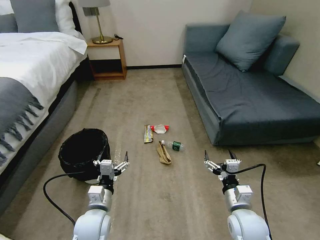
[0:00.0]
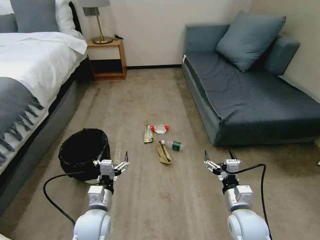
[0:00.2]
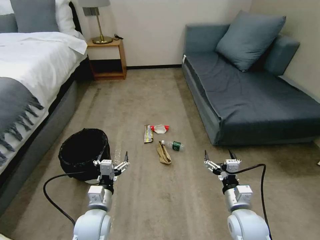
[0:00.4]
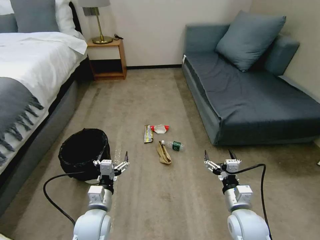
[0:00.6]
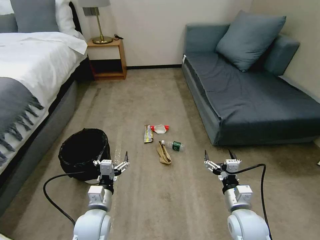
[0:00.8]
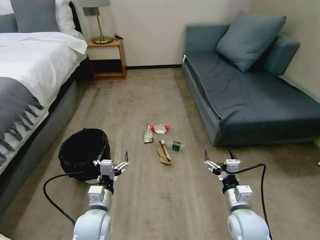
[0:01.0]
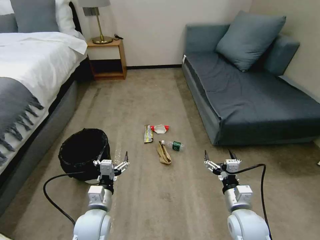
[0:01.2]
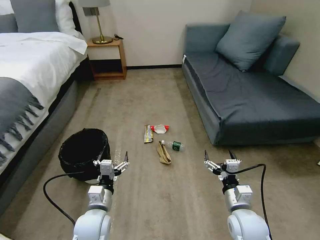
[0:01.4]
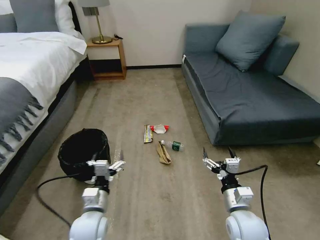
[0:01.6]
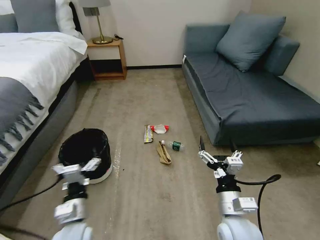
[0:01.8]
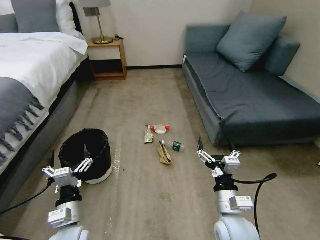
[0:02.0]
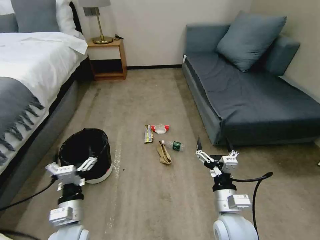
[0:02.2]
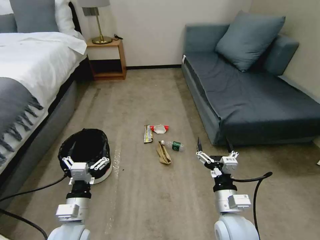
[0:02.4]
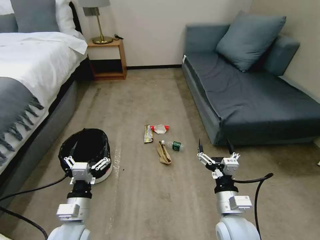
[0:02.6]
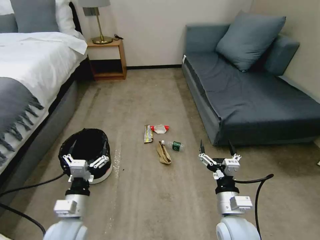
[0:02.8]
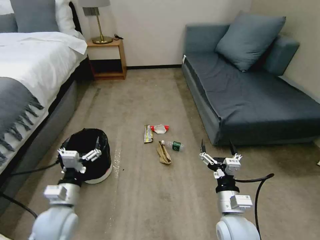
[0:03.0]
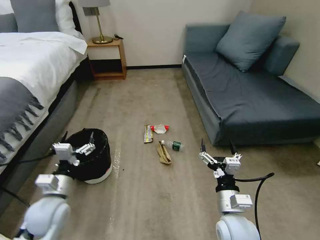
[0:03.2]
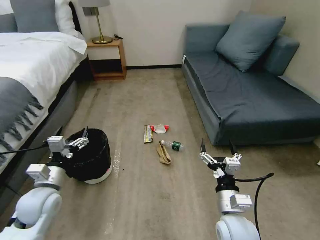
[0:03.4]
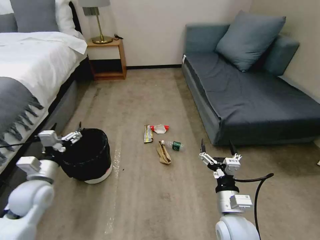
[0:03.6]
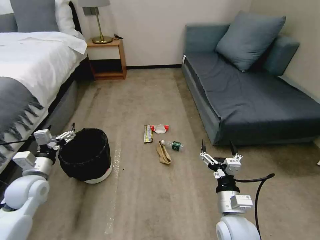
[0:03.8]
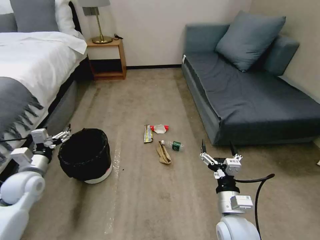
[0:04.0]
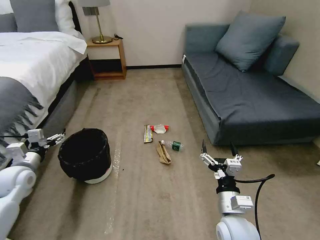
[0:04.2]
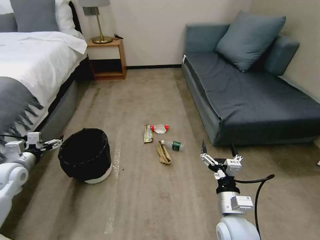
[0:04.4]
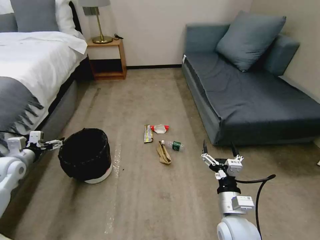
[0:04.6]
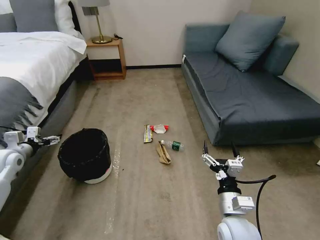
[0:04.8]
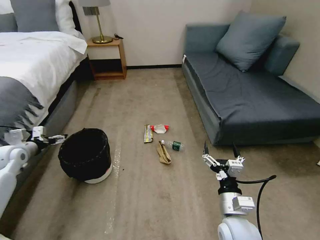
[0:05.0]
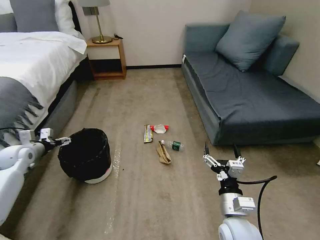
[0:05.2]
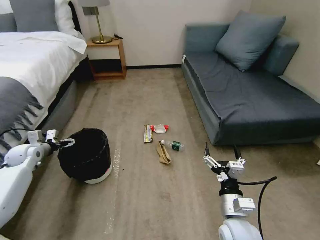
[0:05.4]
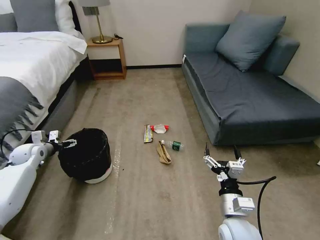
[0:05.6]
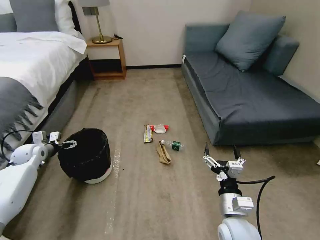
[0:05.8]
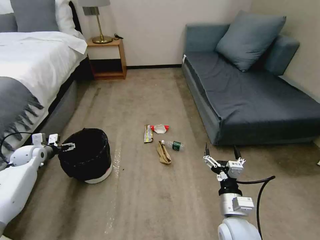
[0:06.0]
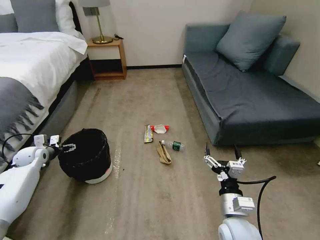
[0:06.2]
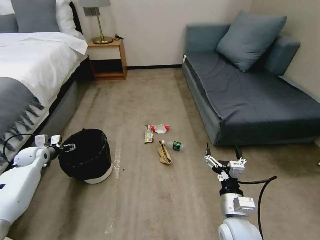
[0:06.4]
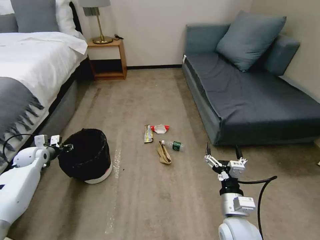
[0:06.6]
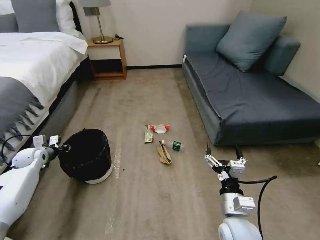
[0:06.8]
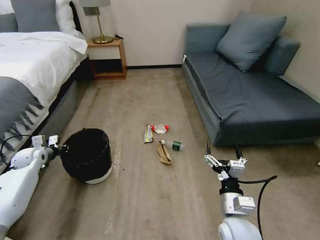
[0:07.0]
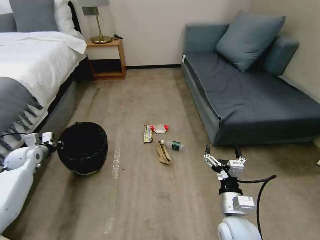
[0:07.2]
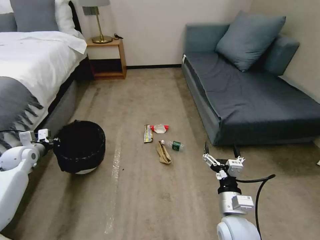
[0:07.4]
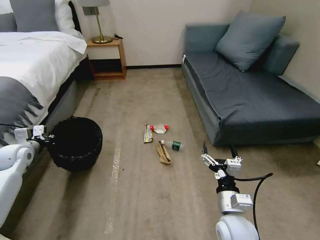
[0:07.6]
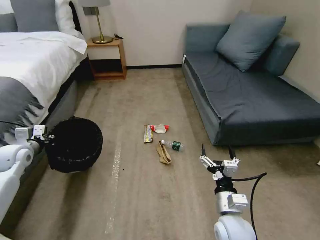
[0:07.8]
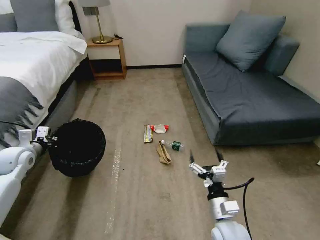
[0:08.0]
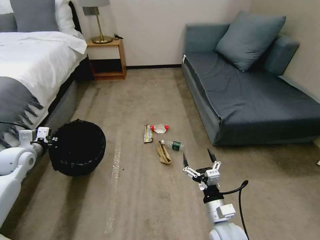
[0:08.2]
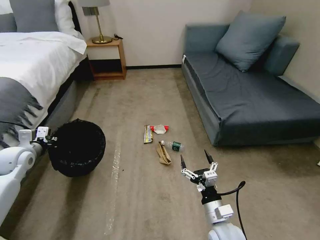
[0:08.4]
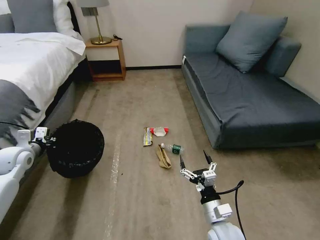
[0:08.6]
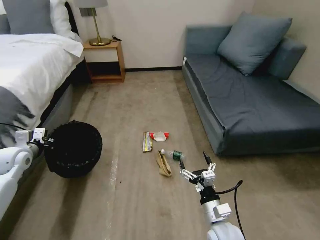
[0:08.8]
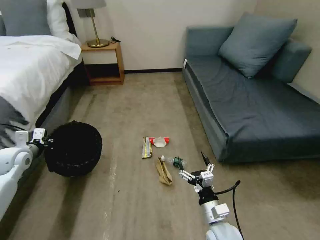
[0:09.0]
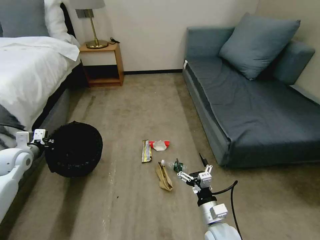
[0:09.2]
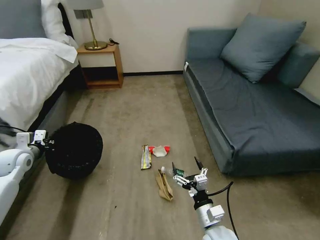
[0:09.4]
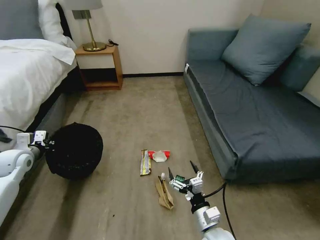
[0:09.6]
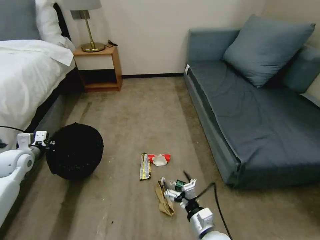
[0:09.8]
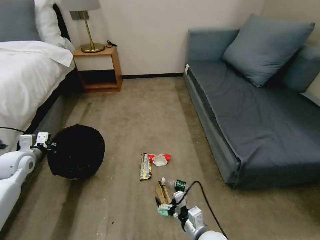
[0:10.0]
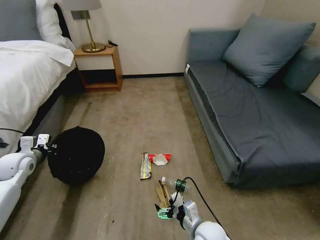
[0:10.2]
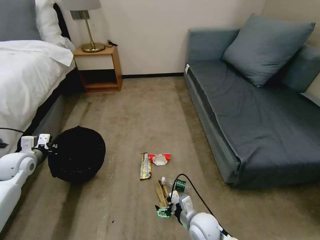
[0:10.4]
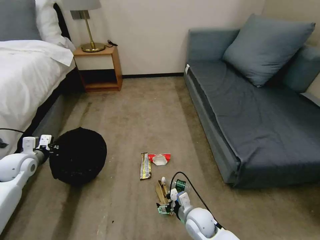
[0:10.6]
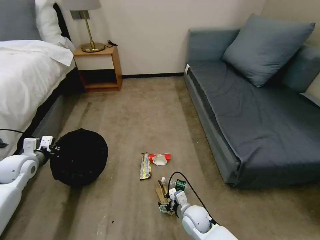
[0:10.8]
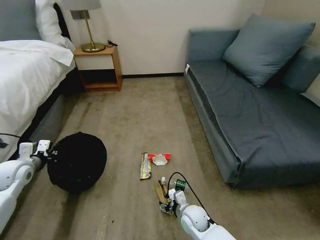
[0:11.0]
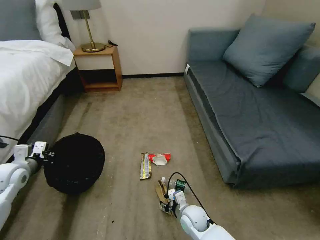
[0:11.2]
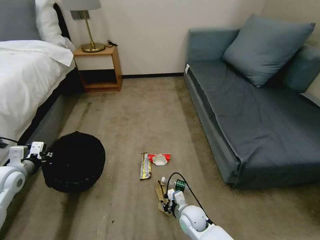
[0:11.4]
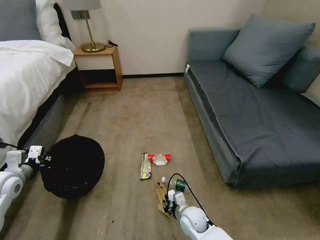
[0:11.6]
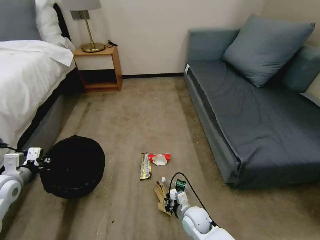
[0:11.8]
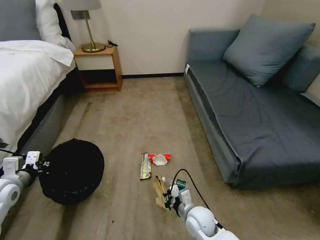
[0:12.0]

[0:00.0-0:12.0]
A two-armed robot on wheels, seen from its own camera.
Task of the whole recording: Pick up the trash bin, then pick up the garbage on the floor and place it into the trash bin.
0:01.6 to 0:03.0: The left gripper travels to the left by approximately 10 cm.
0:03.0 to 0:04.4: The left gripper heads to the left and forward, covering some 25 cm.
0:04.4 to 0:06.0: The left gripper heads forward, covering roughly 10 cm.
0:06.0 to 0:07.6: The left gripper shifts roughly 5 cm upward, and closes up.
0:07.6 to 0:09.0: The right gripper is displaced downward by roughly 5 cm.
0:09.0 to 0:10.4: The right gripper ends up some 5 cm from where it was.
0:10.4 to 0:12.0: The left gripper travels backward by approximately 10 cm. Meanwhile the right gripper closes.

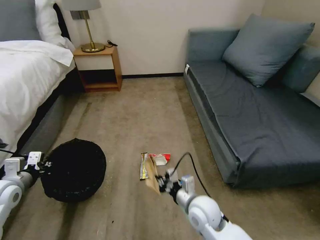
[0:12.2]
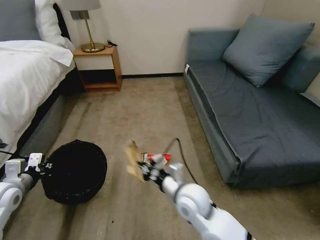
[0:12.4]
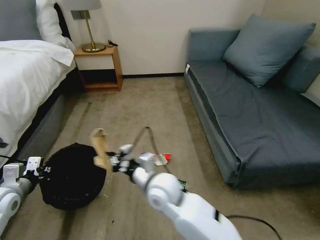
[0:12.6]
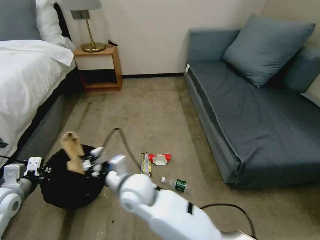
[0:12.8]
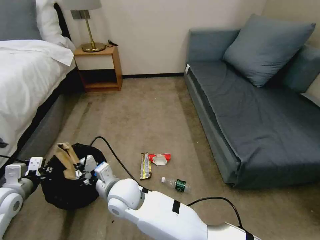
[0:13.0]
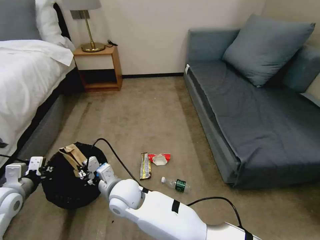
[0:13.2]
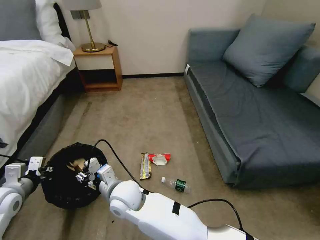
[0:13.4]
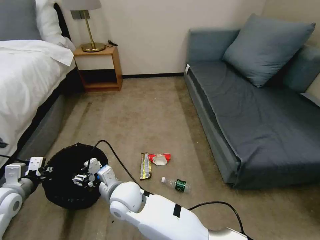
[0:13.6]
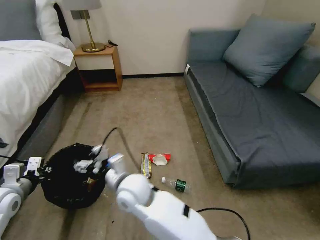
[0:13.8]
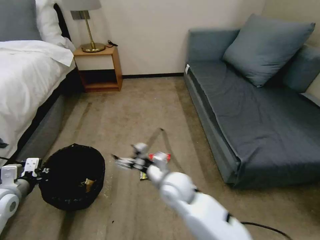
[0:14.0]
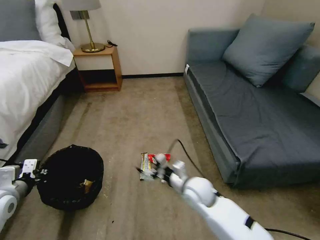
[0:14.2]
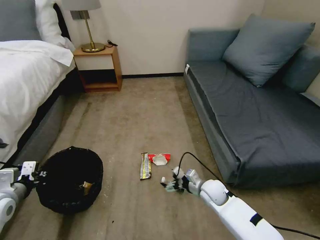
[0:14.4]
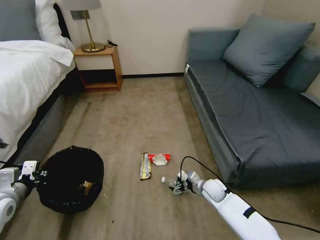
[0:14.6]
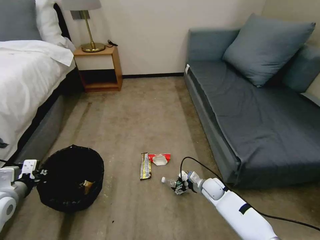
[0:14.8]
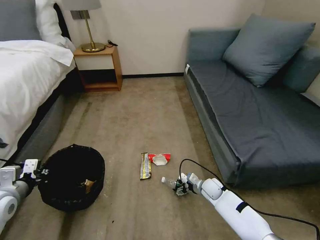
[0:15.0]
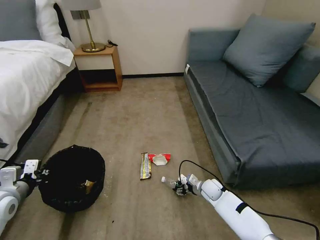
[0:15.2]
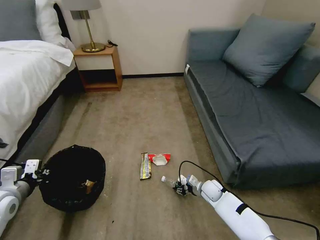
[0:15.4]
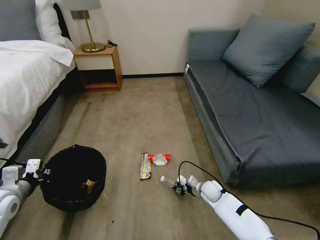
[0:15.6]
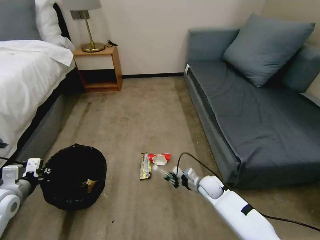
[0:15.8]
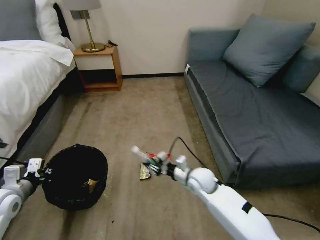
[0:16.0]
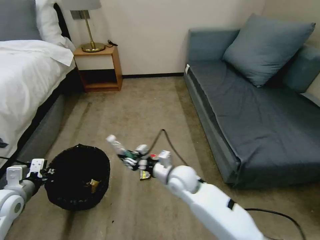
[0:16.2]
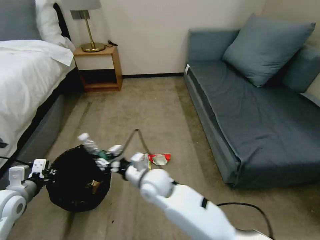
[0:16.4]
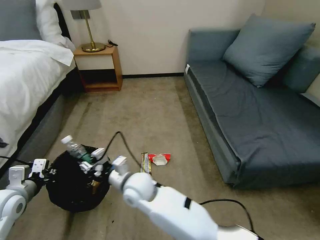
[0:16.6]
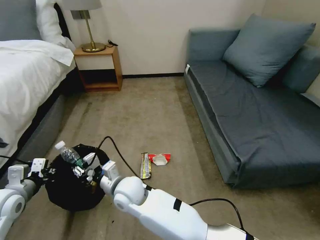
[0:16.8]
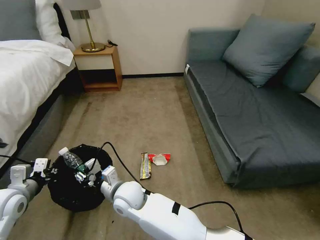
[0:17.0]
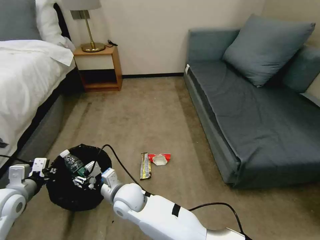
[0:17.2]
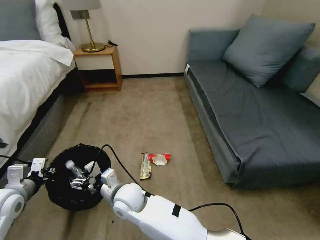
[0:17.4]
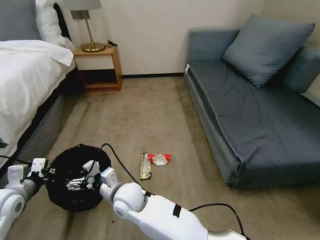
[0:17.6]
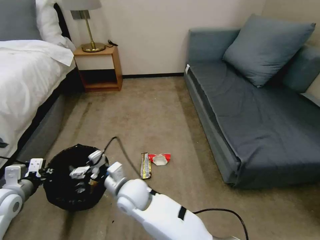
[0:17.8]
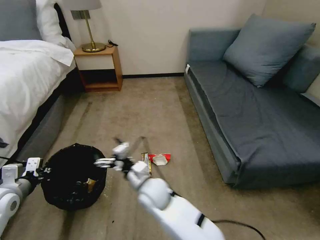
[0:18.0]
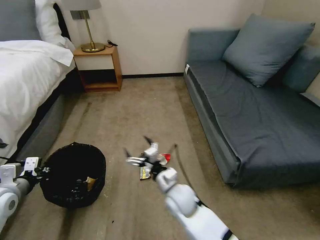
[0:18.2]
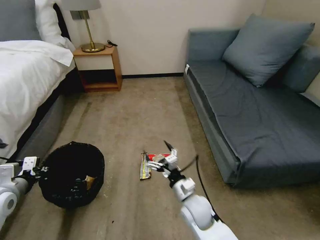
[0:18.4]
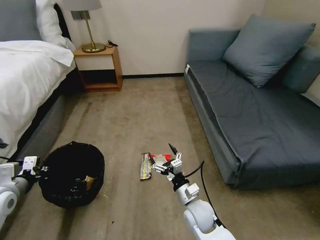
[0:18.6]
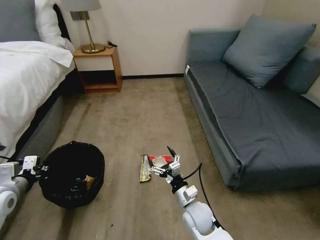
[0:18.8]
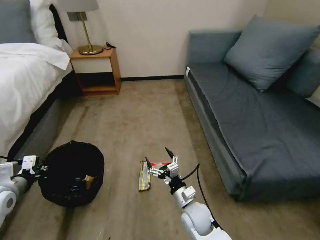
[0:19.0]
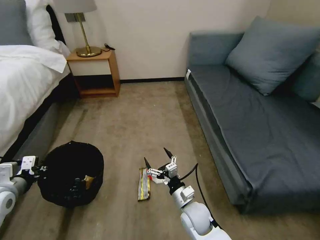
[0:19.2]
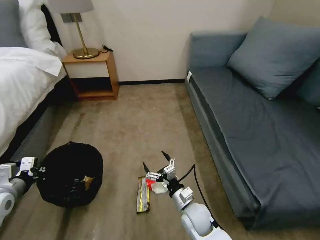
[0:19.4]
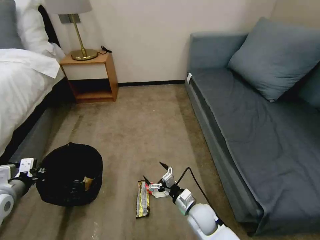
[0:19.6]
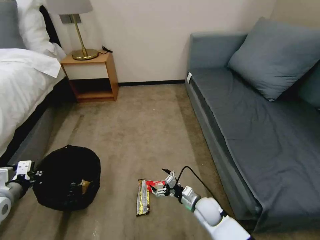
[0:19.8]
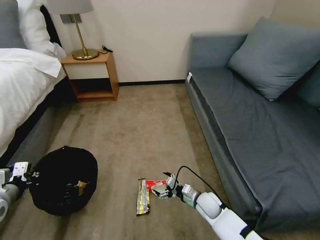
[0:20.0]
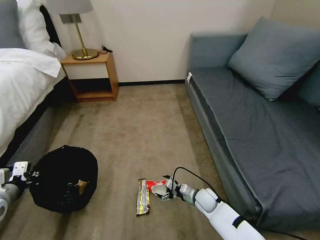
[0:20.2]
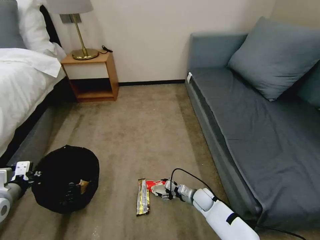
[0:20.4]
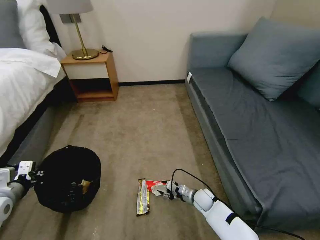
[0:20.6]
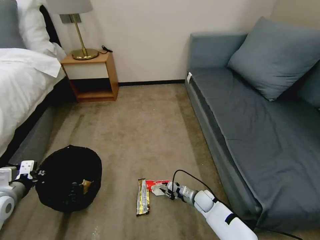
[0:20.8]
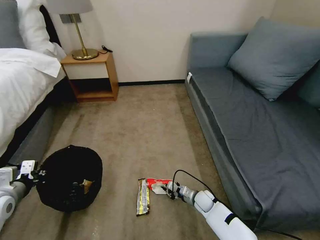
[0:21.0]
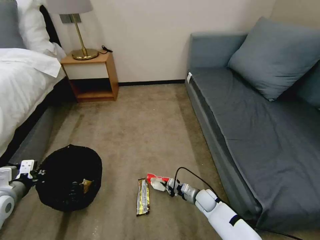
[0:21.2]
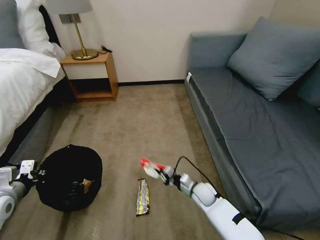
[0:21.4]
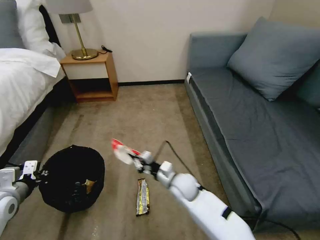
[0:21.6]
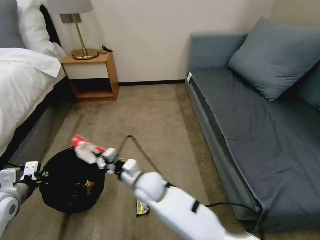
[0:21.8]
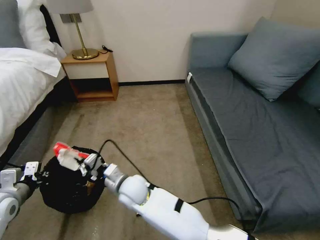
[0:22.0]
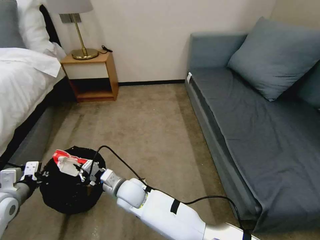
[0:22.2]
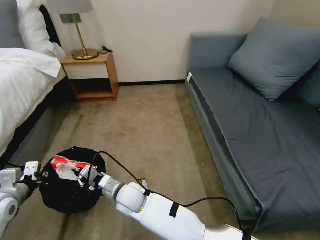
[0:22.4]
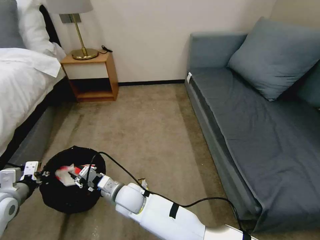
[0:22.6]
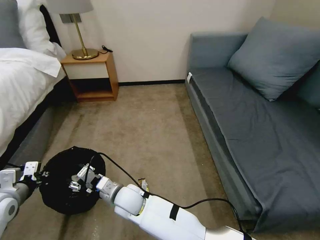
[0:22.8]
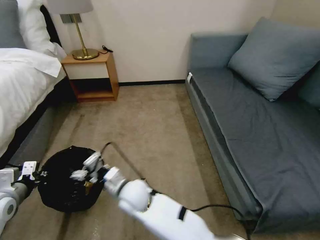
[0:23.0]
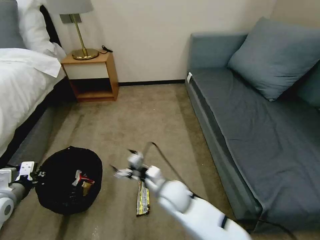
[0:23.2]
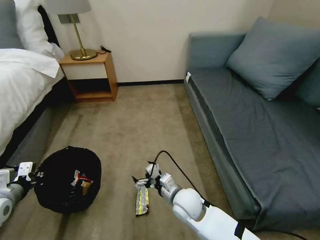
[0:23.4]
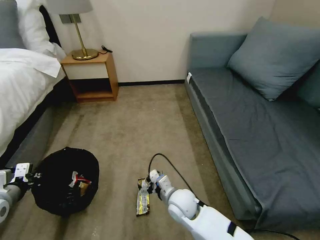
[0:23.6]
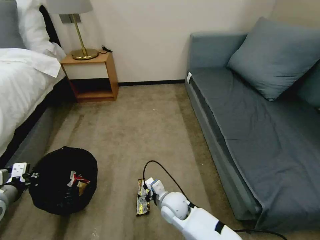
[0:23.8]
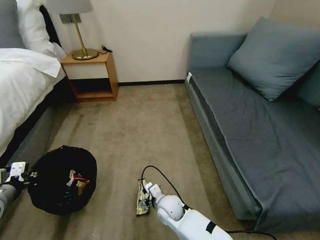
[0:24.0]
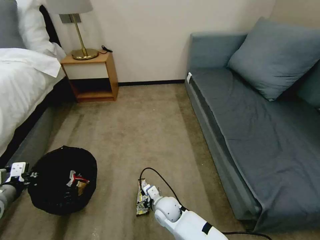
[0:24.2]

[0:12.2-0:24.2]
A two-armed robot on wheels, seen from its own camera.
Task of the whole recording: Pick up the trash bin, then pick up the garbage on the floor and place it into the trash bin.
0:12.2 to 0:13.8: The right gripper heads to the left, covering some 25 cm, and opens.
0:13.8 to 0:15.2: The right gripper is displaced to the right and downward by roughly 40 cm.
0:15.2 to 0:16.6: The right gripper goes roughly 35 cm to the left and upward, and closes up.
0:16.6 to 0:18.2: The right gripper travels to the right and downward by about 15 cm, and opens up.
0:18.2 to 0:19.8: The right gripper shifts roughly 15 cm downward and to the right.
0:19.8 to 0:21.2: The right gripper moves downward and forward, roughly 10 cm, and closes its fingers.
0:21.2 to 0:22.6: The right gripper heads to the left and upward, covering some 35 cm.
0:22.6 to 0:24.2: The right gripper moves to the right and downward, about 15 cm, and opens.
